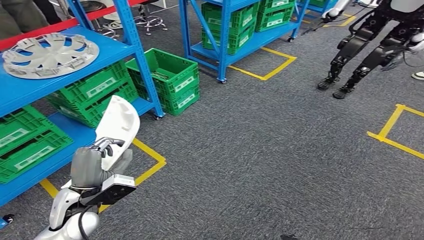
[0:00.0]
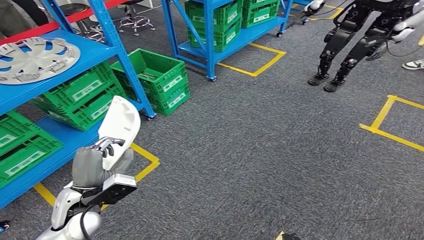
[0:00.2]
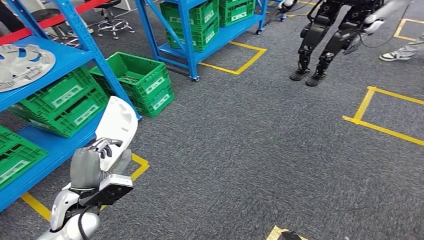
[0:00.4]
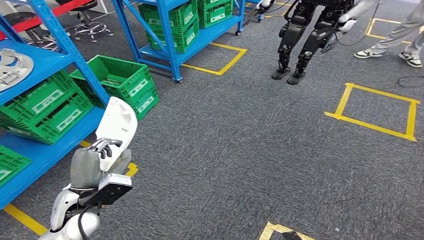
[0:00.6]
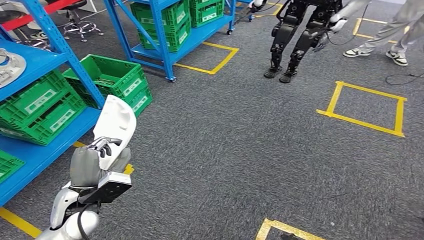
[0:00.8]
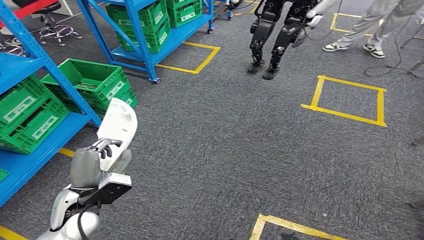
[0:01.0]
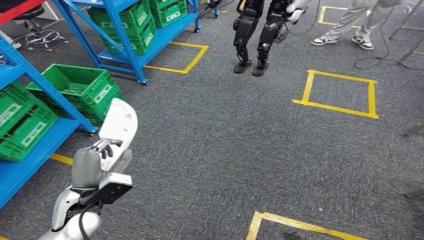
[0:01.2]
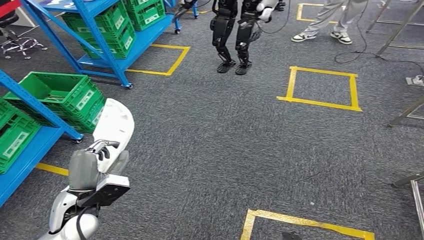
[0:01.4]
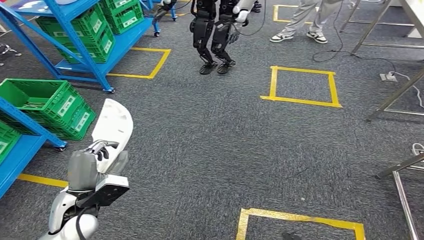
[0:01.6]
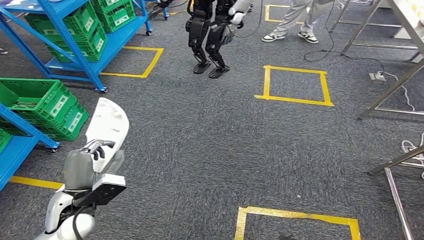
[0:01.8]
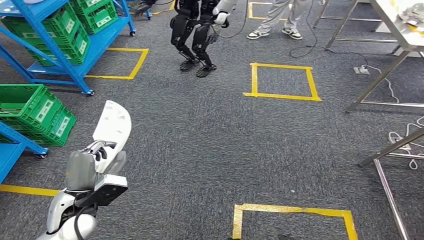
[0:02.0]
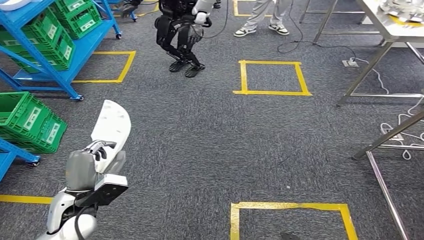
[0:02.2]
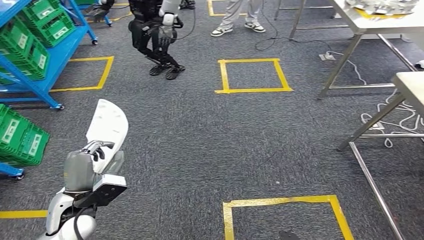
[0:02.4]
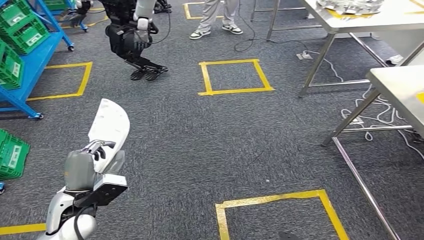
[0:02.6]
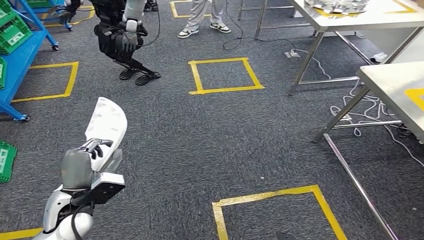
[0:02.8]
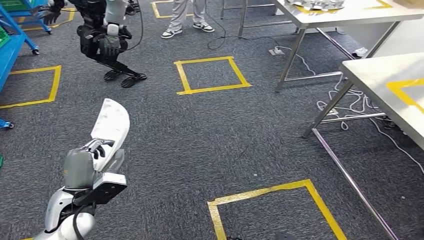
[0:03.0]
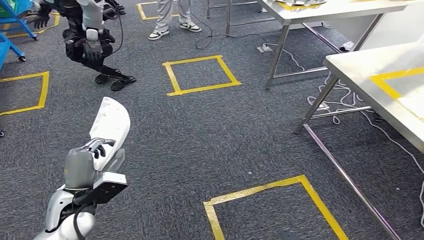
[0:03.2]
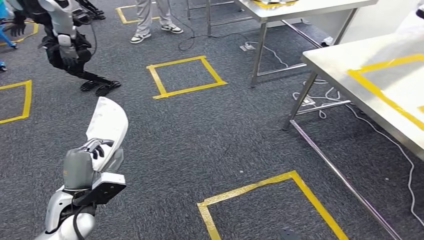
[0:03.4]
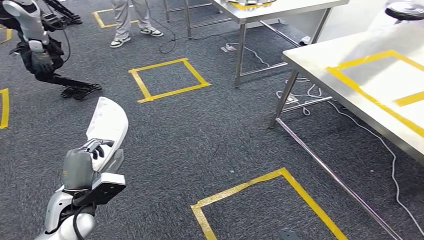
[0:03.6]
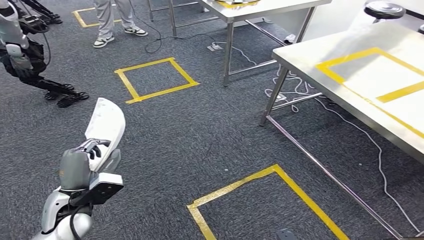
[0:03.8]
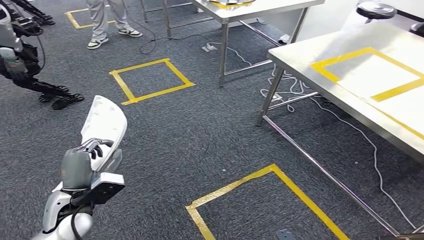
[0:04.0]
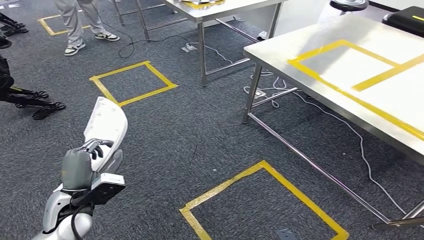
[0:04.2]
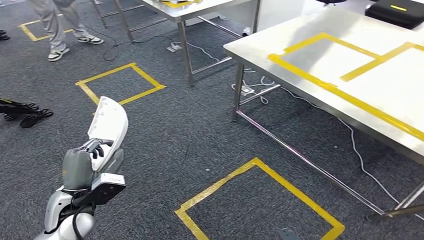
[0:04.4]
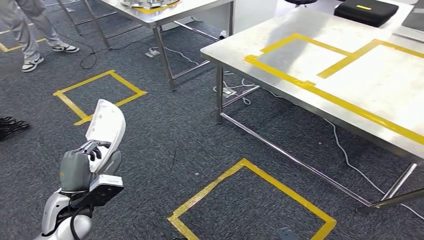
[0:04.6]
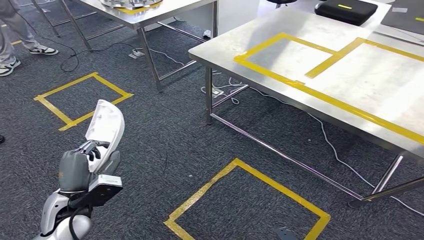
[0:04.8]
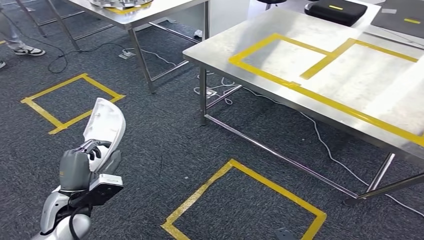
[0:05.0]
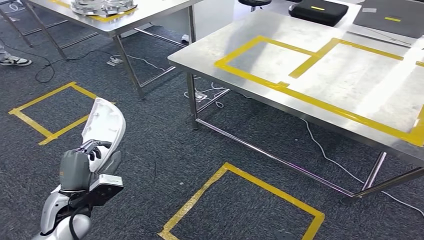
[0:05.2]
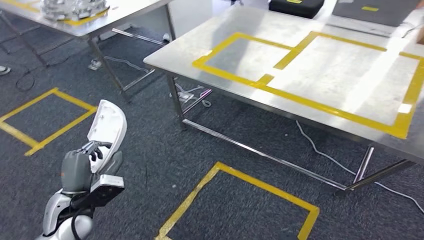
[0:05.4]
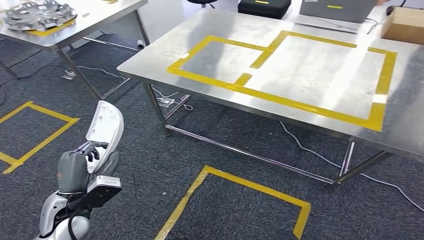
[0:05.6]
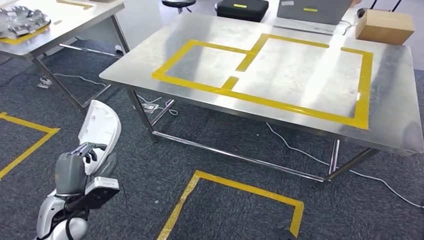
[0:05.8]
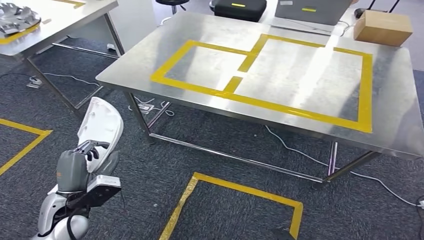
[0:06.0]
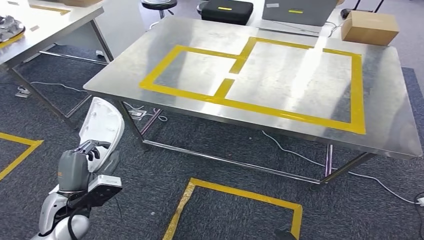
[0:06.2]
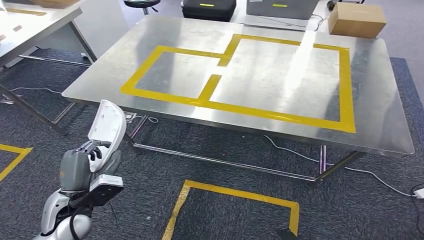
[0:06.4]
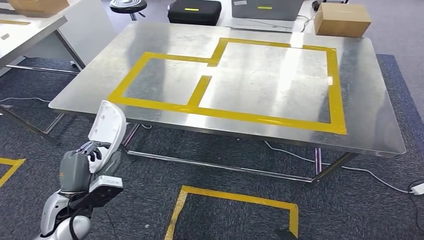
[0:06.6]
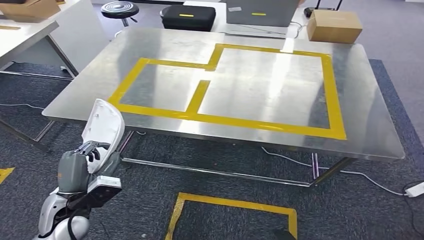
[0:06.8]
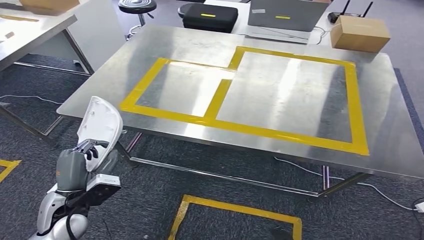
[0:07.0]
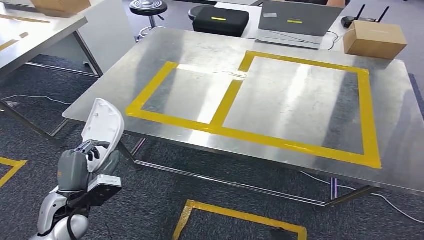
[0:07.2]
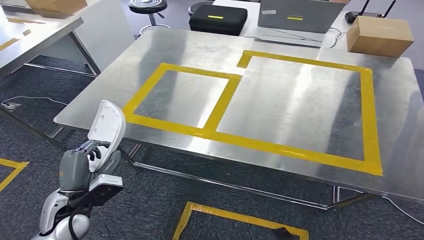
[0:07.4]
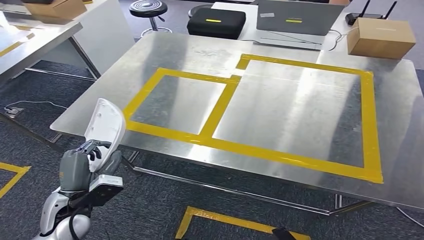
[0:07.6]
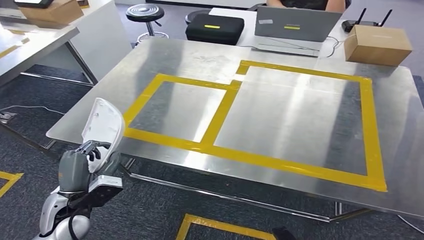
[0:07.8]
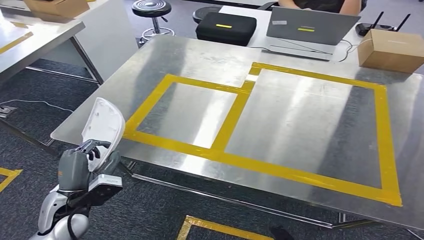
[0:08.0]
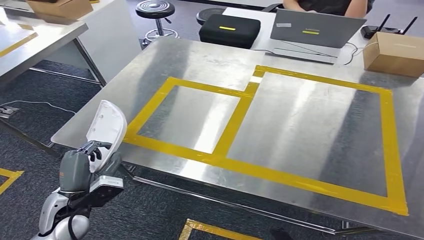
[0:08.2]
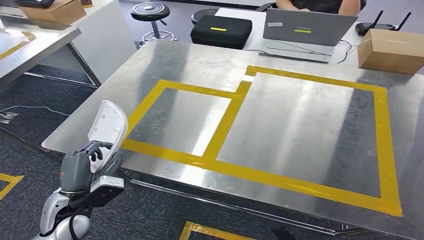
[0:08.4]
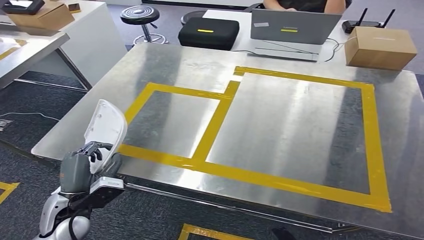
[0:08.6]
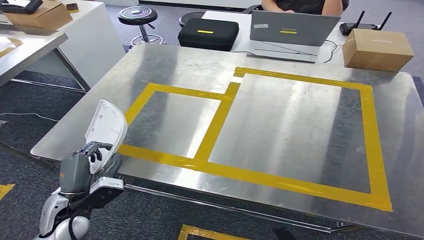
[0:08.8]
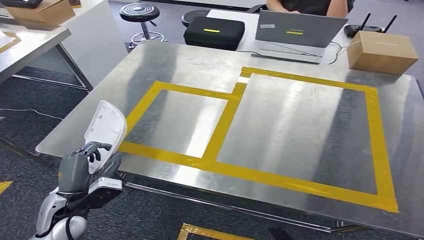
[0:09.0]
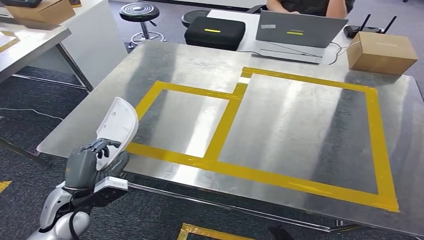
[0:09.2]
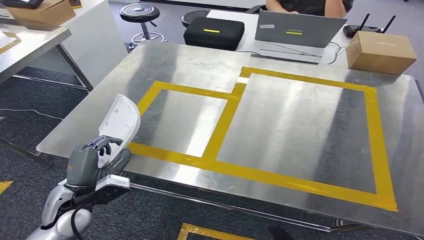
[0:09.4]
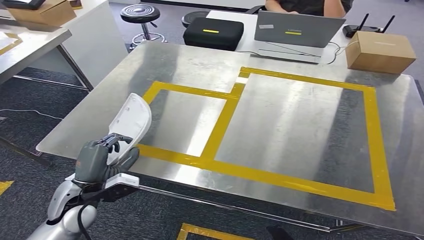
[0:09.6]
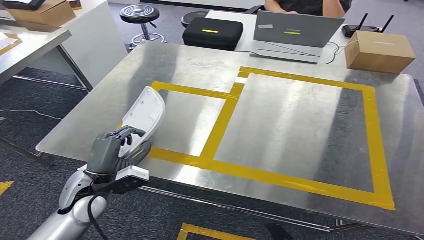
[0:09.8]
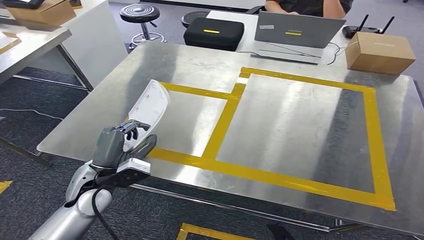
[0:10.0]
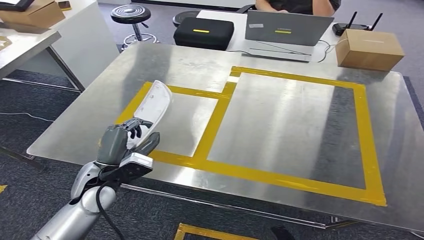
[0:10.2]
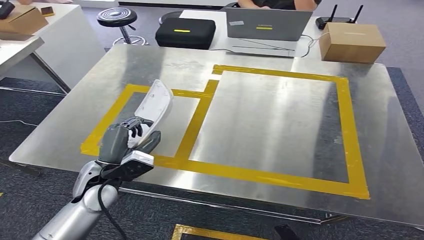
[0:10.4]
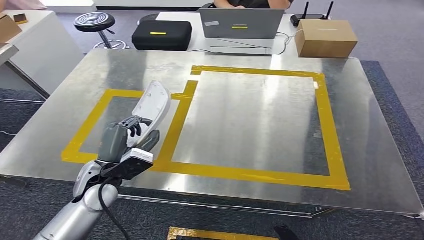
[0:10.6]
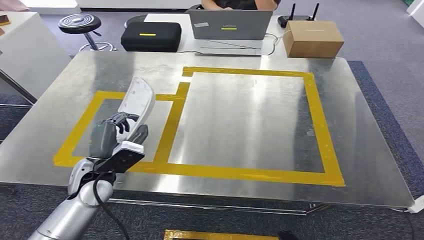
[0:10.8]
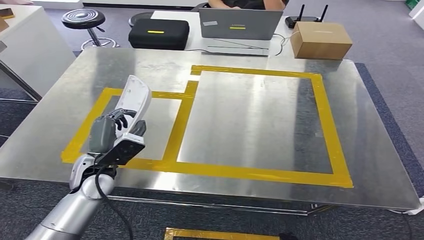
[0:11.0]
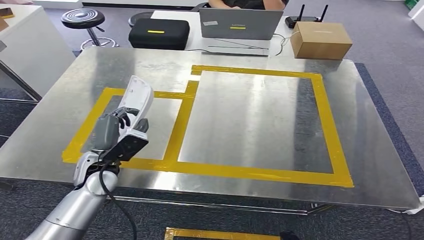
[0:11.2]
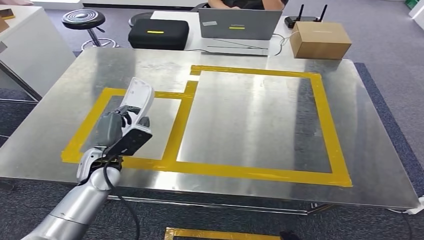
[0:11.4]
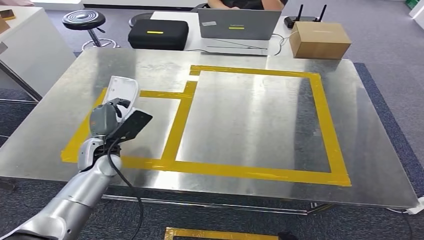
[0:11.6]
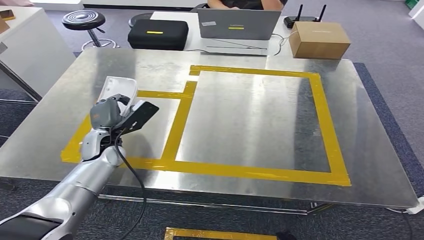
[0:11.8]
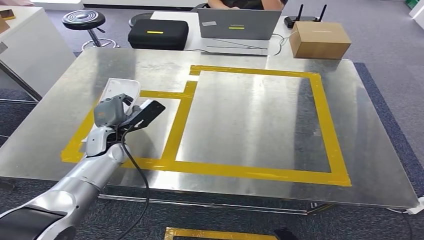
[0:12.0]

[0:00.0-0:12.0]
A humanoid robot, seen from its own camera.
Step, 0:00.0 to 0:08.6: Move the small parts to the workbench.

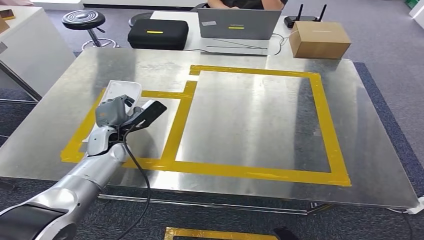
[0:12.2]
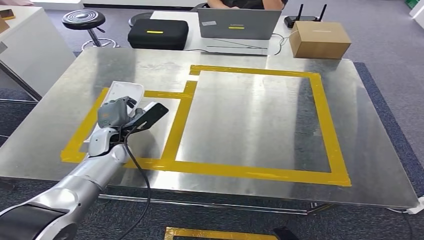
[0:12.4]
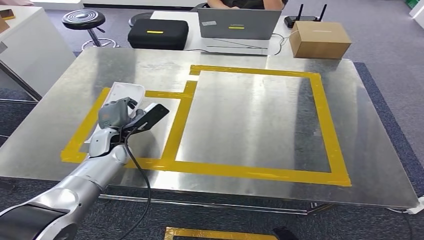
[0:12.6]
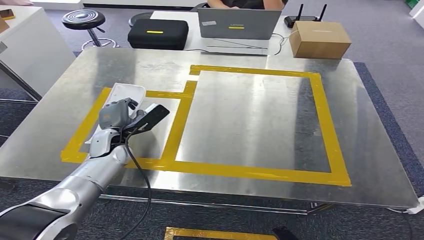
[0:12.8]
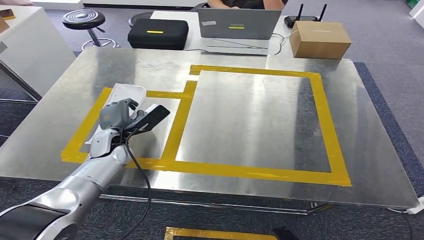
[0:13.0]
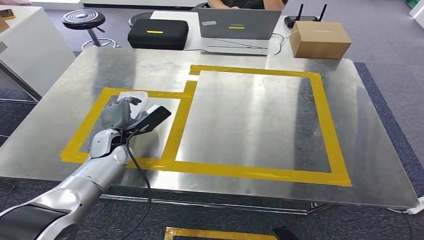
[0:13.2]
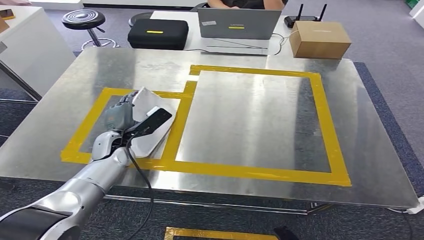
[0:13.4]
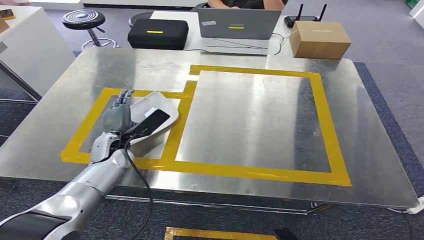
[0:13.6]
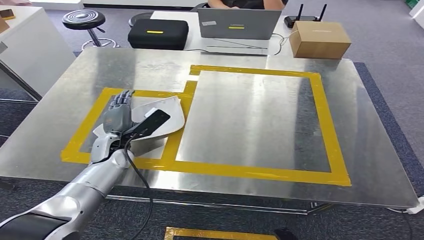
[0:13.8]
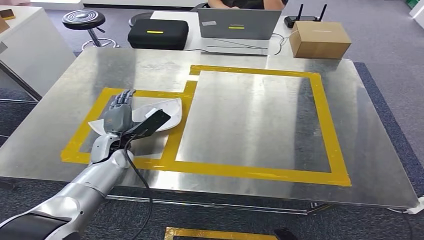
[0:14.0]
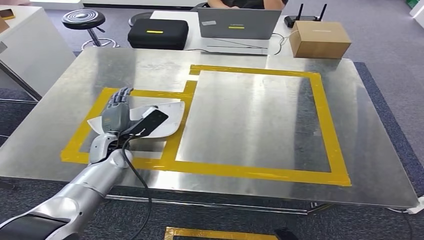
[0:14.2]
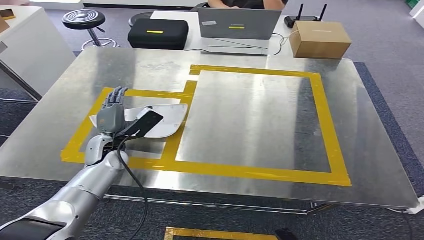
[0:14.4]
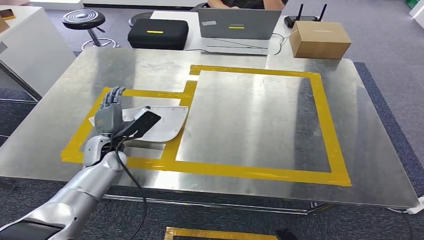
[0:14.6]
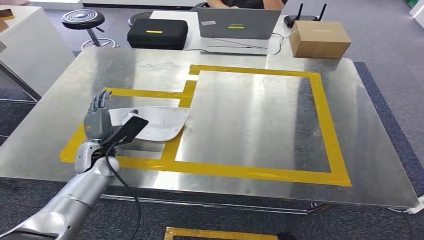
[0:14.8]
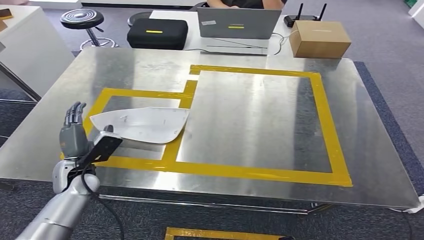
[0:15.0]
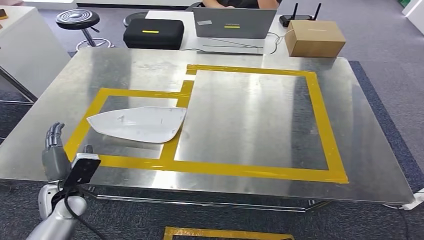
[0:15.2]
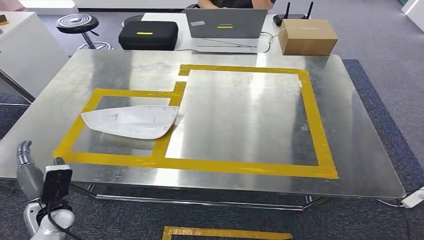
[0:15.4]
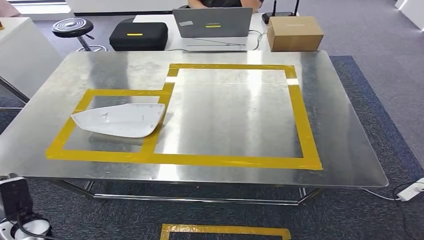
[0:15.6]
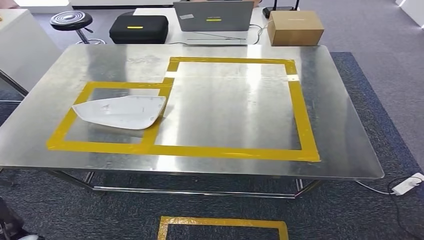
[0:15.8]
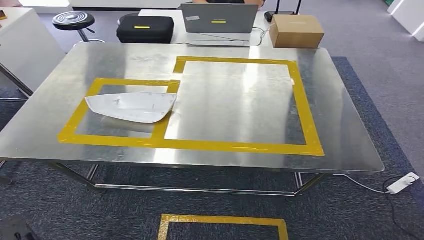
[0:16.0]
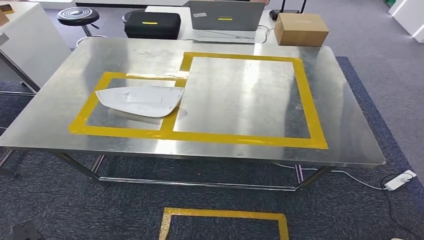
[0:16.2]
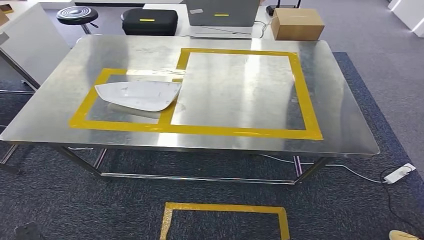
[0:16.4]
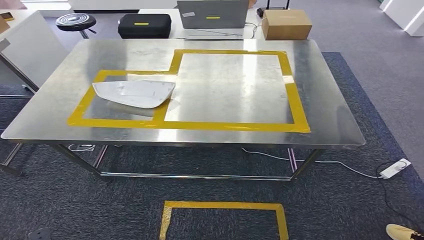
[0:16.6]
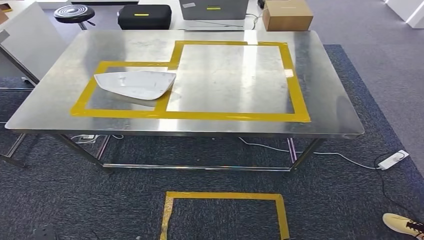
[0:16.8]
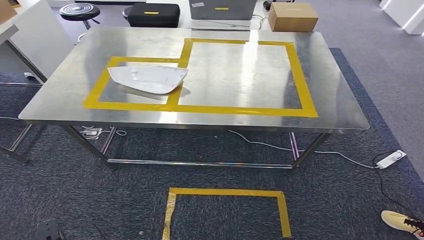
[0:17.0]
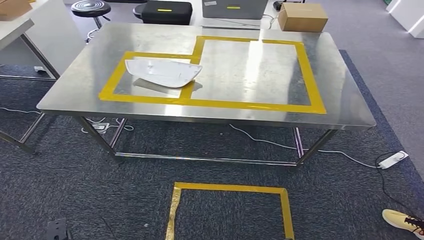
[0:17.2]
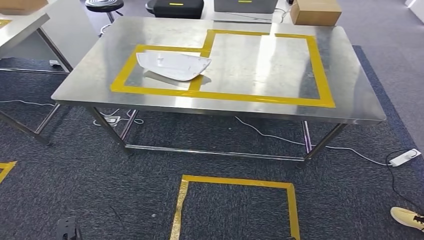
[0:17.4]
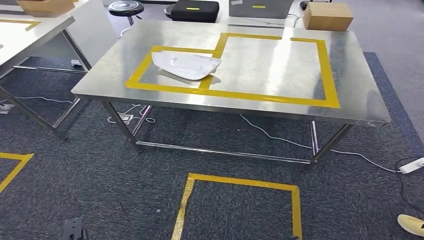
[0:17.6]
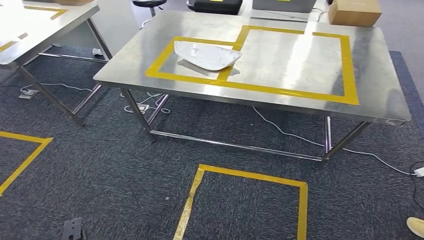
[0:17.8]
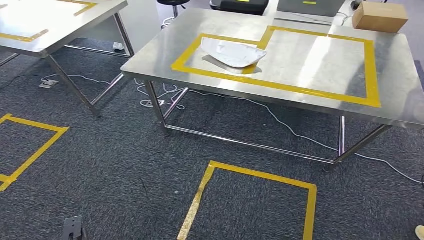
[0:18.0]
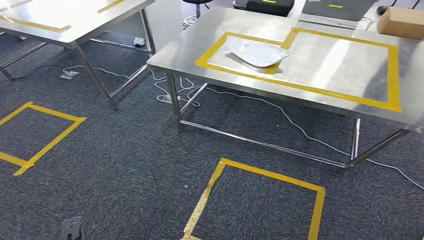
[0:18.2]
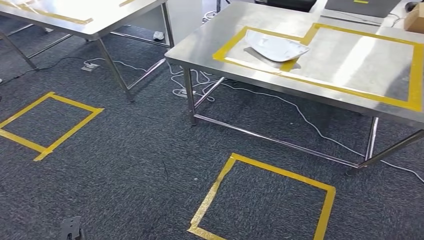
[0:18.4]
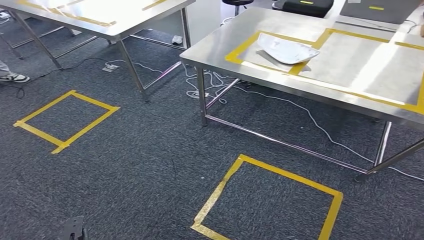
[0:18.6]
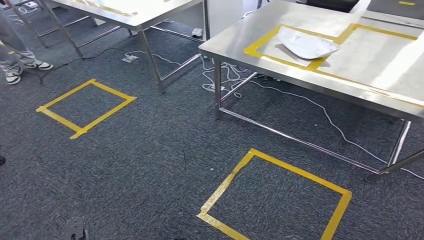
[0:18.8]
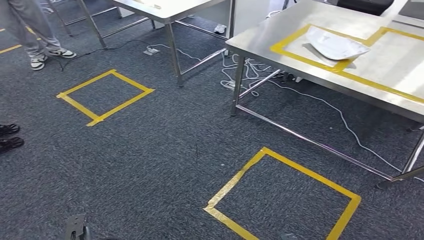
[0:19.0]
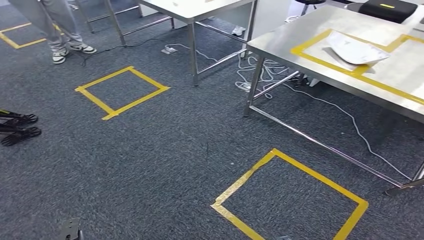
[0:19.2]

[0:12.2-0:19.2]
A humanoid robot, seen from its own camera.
Step, 0:12.2 to 0:15.6: Insert the small parts into the corresponding holes on the workbench.
0:12.2 to 0:13.6: The hands make only small movements.
0:13.6 to 0:15.0: The left hand shifts approximately 5 cm backward.
